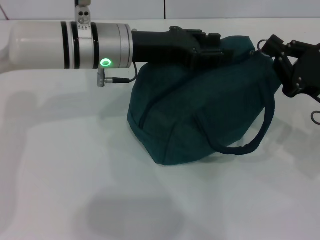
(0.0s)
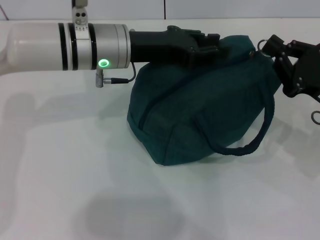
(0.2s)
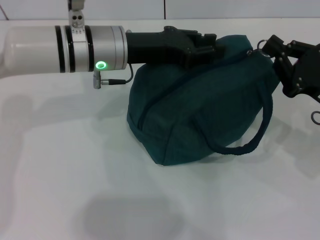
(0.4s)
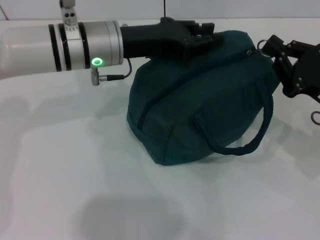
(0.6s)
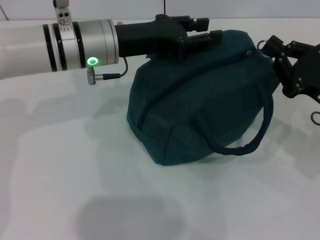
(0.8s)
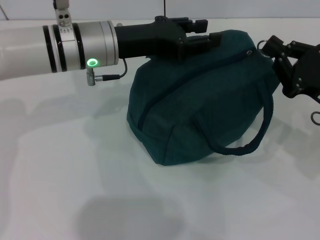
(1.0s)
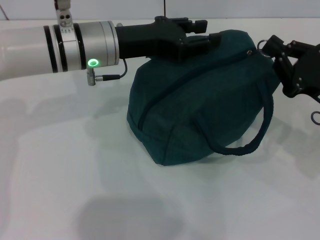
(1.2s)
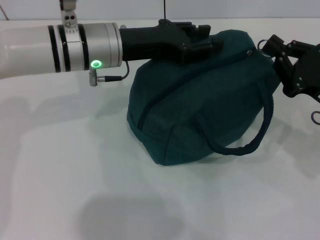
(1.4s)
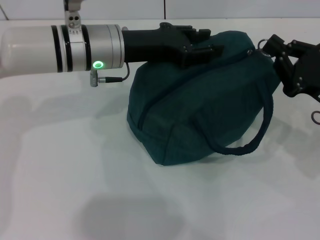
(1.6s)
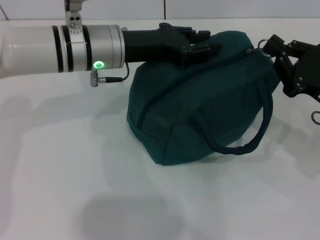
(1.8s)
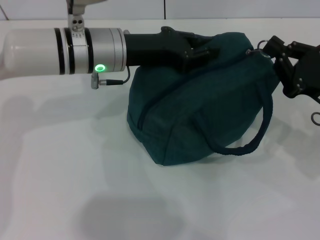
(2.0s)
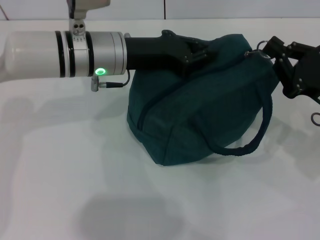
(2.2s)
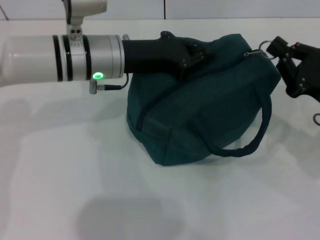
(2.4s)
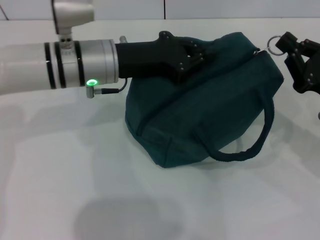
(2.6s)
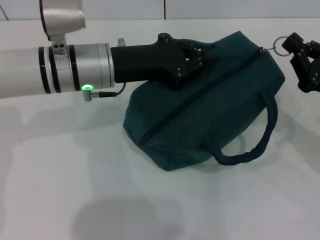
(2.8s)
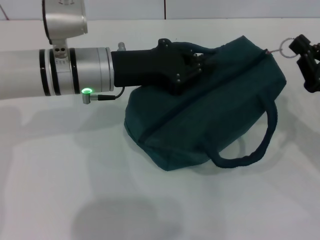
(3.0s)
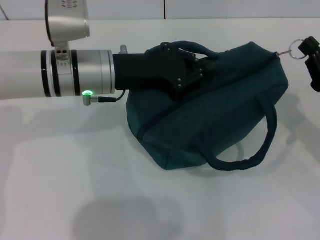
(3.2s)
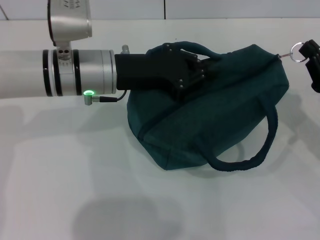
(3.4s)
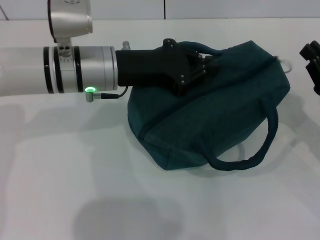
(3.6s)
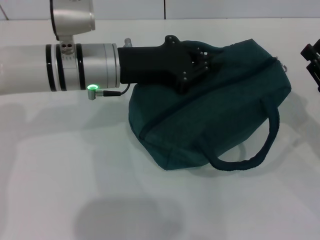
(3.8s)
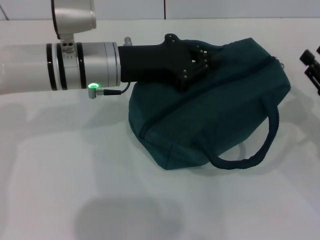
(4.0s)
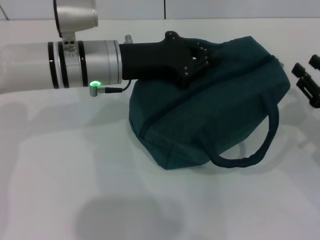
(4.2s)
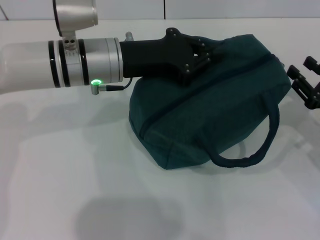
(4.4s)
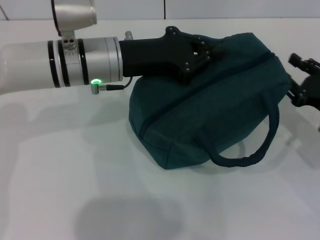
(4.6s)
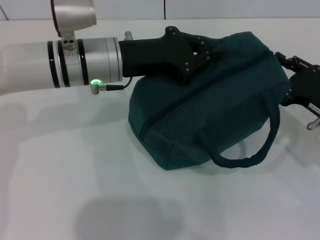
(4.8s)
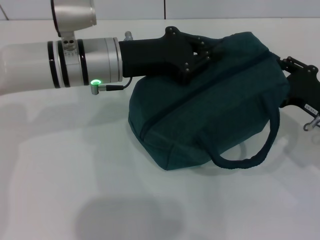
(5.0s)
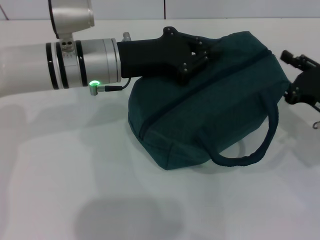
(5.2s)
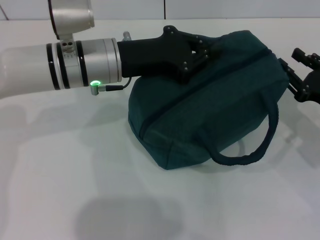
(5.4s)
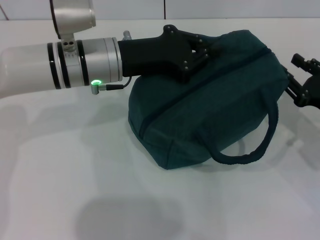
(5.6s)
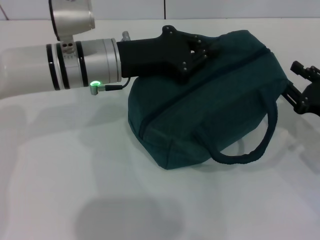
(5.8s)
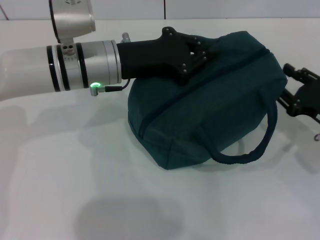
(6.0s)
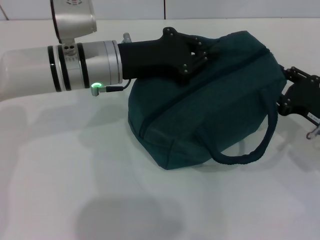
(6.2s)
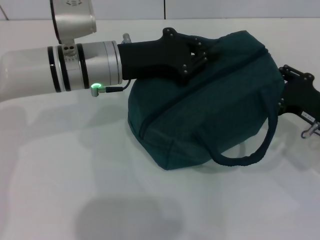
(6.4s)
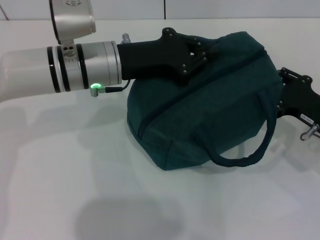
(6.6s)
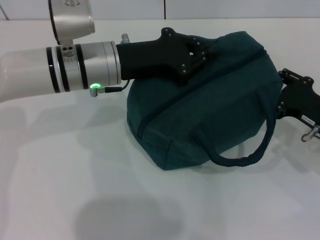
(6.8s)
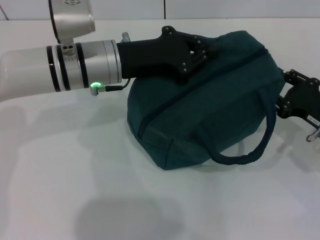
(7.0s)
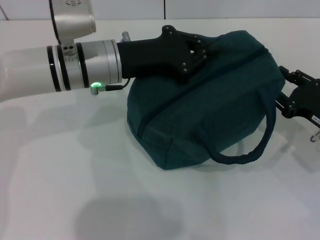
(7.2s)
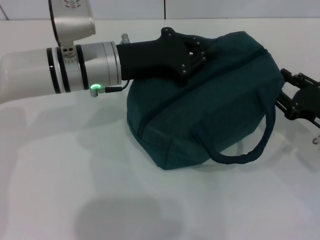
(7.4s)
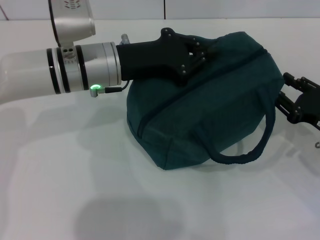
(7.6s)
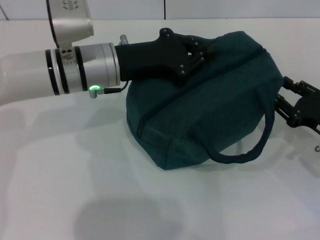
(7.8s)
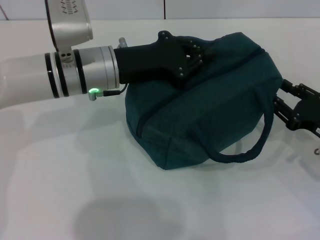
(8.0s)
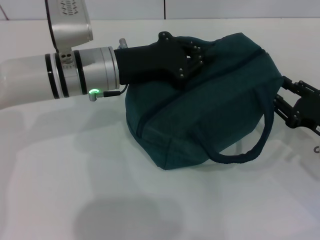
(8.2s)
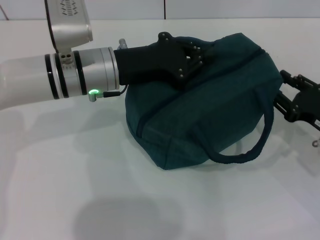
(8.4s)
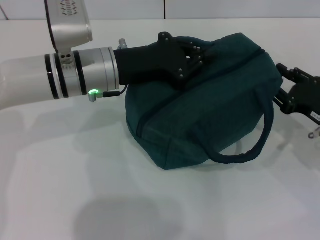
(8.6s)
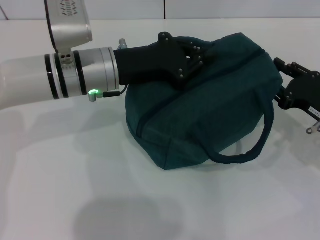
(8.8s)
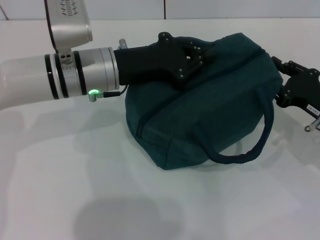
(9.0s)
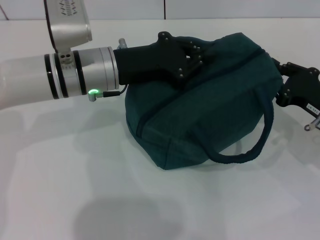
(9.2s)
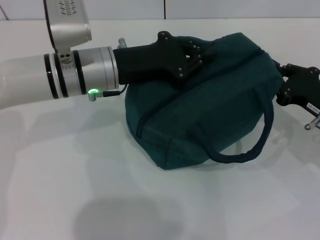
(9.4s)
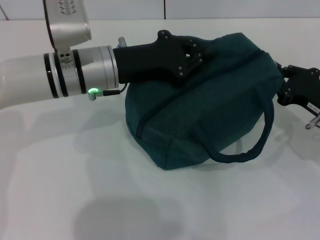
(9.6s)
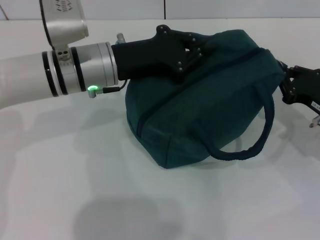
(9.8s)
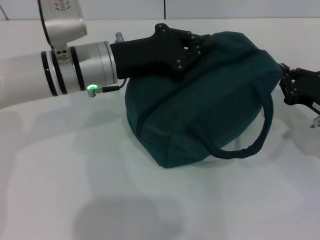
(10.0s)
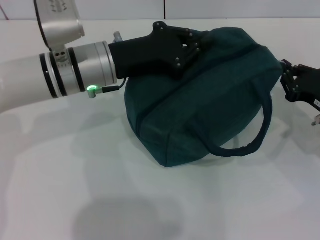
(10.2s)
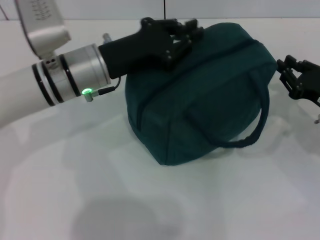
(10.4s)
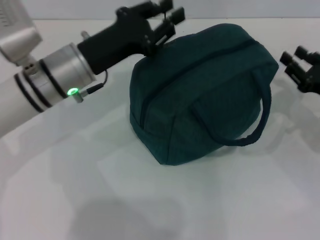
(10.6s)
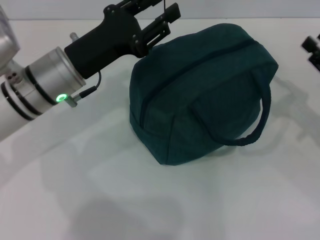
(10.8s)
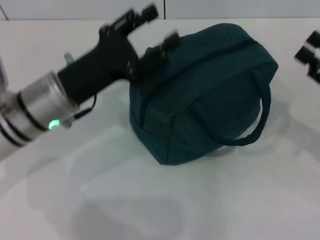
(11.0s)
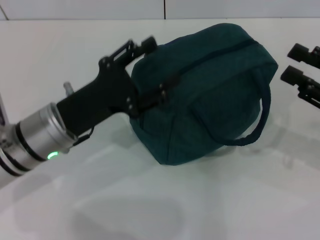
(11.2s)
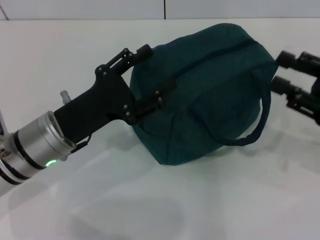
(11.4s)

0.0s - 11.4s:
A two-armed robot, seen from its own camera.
Step, 0.0s - 10.2s: Zip up the lunch bag with your right hand.
0.0s - 1.4s: The grippers make only small movements.
1.4s - 2.8s: The left gripper closes.
2.8s - 4.2s: The right gripper opens its fingers.
4.2s - 8.6s: The grippers stay close to where they were, moving slightly.
8.6s - 10.0s: The right gripper closes its fingers.
10.0s - 11.4s: The right gripper is displaced upward by some 10 cm, and opens up. Meanwhile the left gripper heads backward, downward and to the left, covering approximately 10 cm, and opens up.

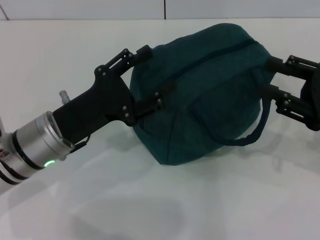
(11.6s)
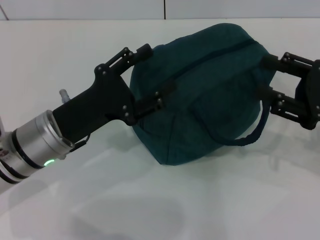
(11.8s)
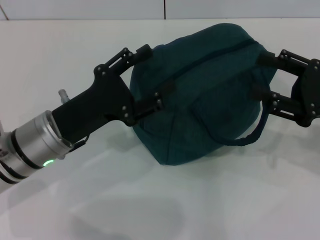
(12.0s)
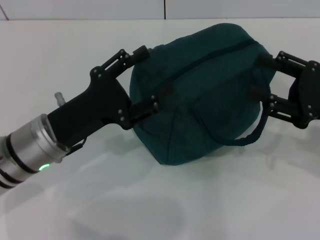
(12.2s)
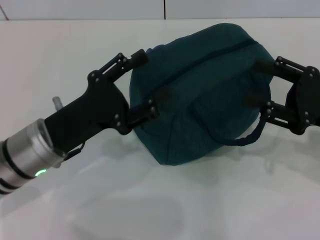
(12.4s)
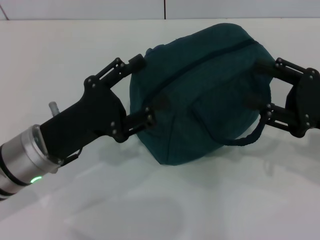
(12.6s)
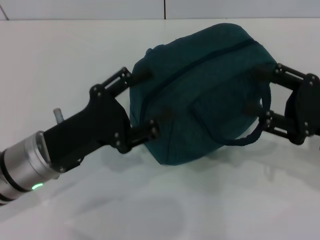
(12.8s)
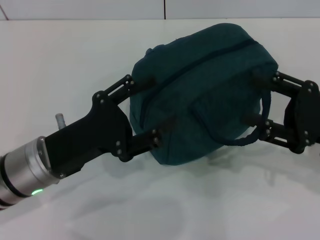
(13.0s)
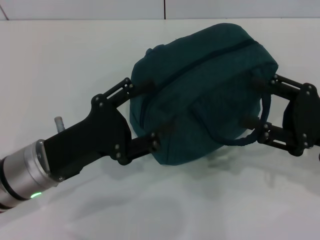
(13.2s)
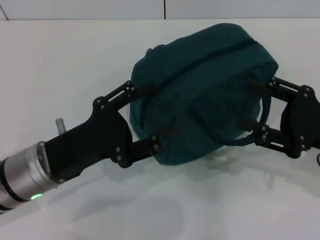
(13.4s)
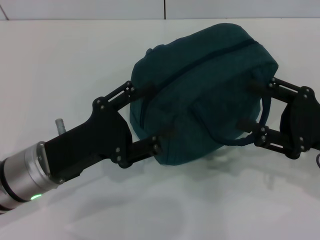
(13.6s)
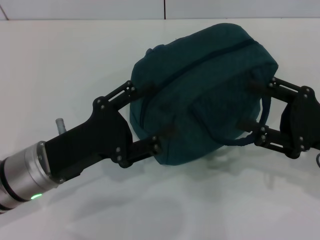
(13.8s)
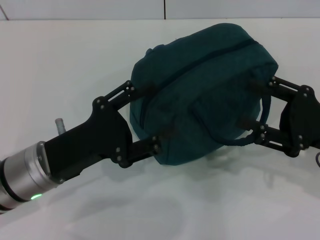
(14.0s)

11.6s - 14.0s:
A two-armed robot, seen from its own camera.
11.6s - 12.8s: The grippers stay close to where they were, moving slightly.
12.8s - 14.0s: Neither gripper changes place.

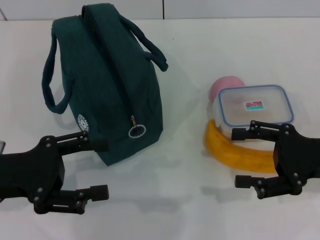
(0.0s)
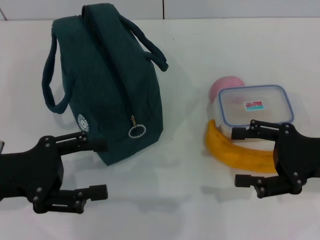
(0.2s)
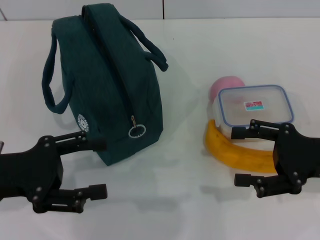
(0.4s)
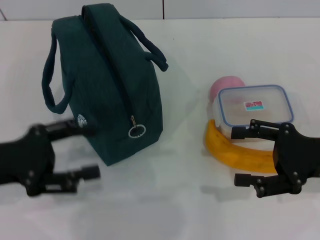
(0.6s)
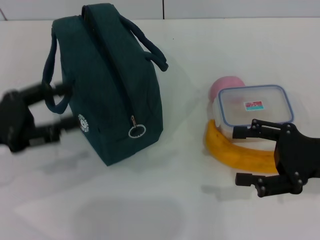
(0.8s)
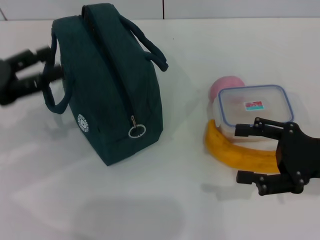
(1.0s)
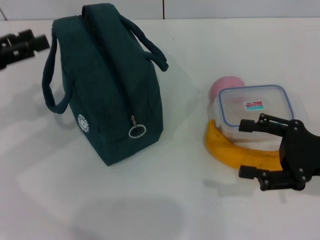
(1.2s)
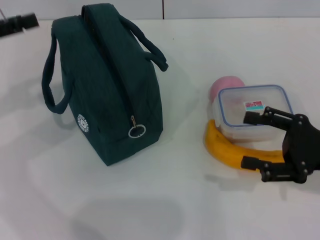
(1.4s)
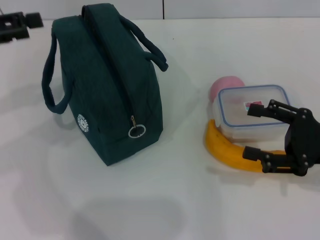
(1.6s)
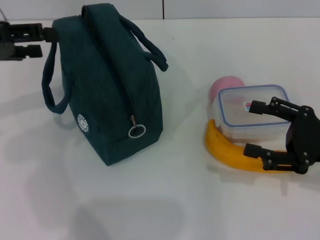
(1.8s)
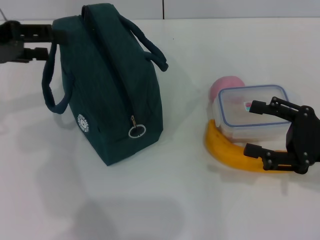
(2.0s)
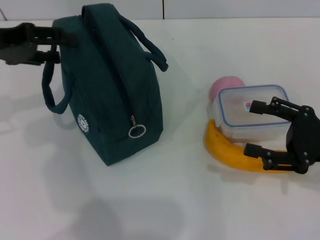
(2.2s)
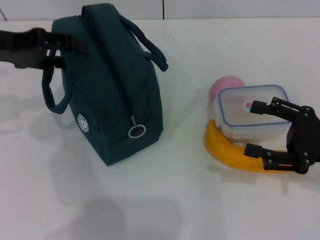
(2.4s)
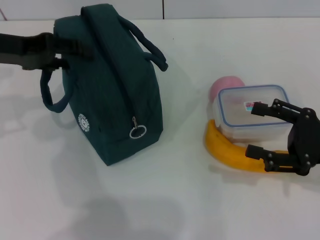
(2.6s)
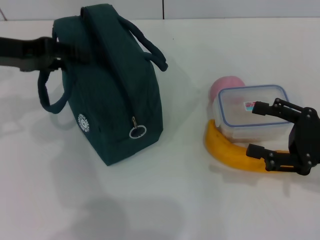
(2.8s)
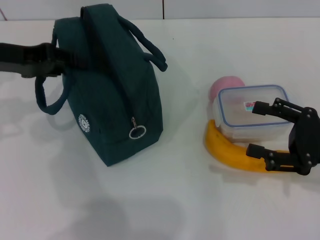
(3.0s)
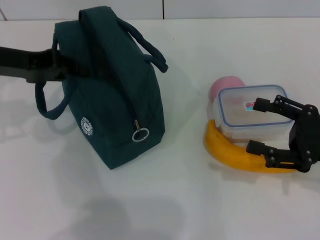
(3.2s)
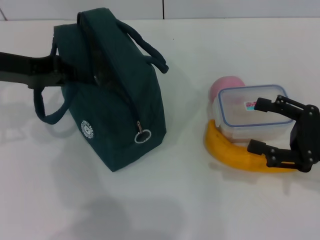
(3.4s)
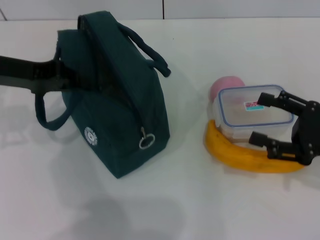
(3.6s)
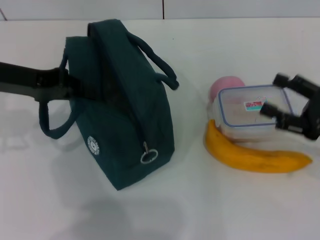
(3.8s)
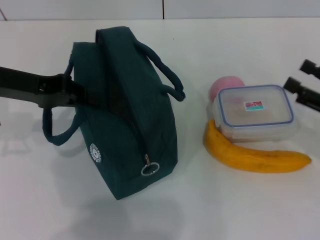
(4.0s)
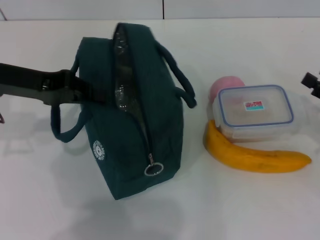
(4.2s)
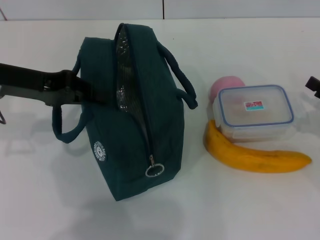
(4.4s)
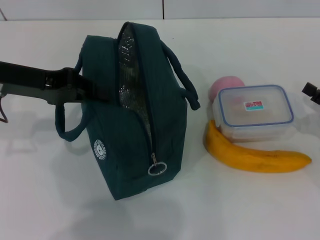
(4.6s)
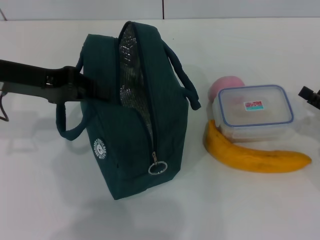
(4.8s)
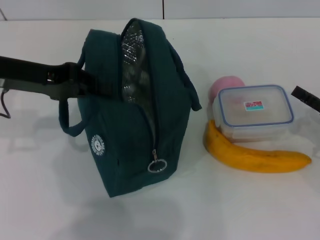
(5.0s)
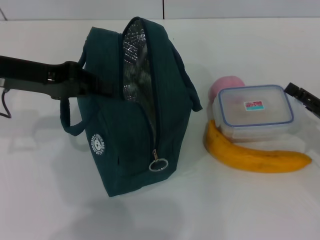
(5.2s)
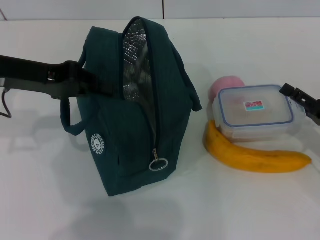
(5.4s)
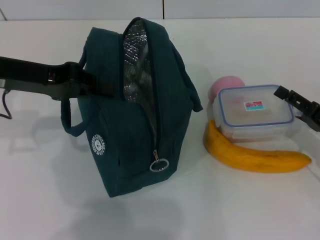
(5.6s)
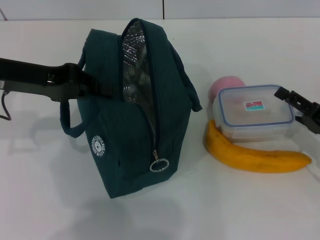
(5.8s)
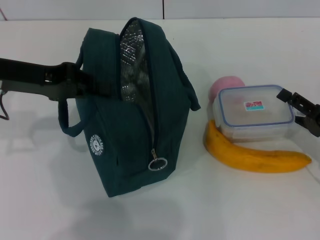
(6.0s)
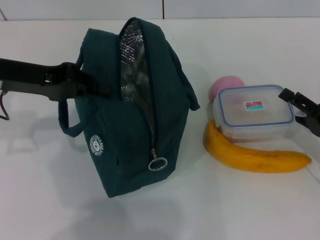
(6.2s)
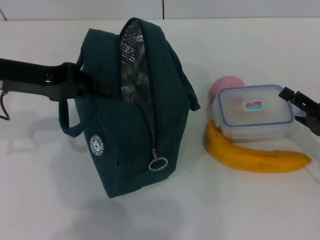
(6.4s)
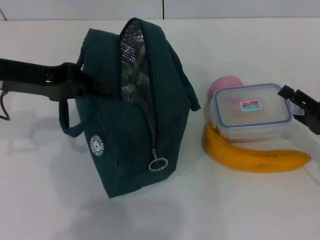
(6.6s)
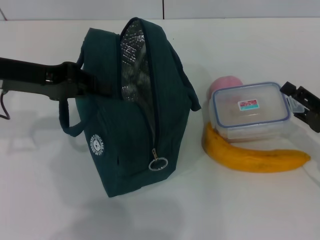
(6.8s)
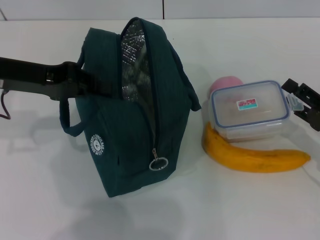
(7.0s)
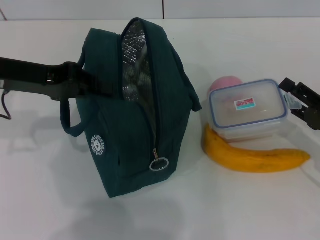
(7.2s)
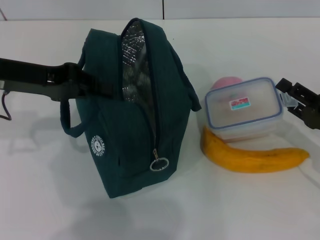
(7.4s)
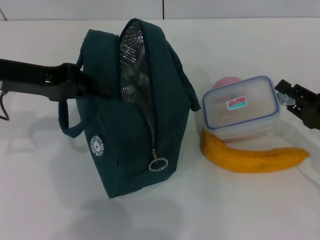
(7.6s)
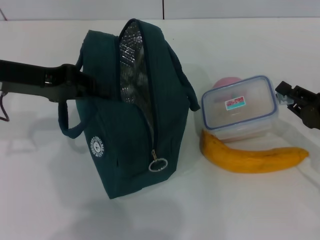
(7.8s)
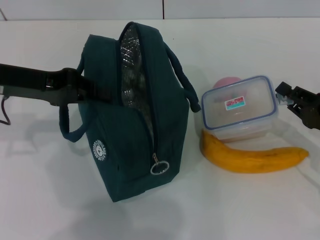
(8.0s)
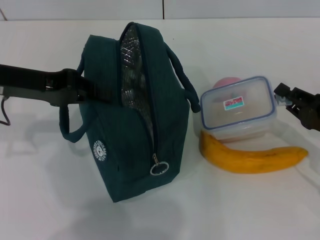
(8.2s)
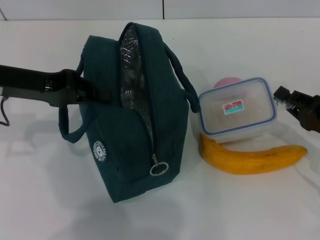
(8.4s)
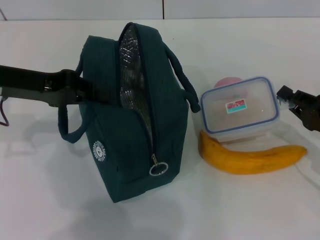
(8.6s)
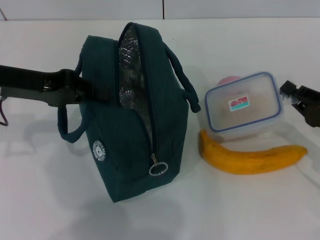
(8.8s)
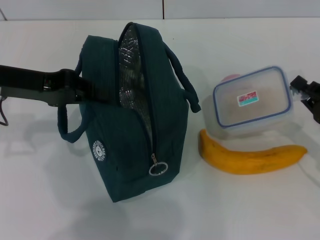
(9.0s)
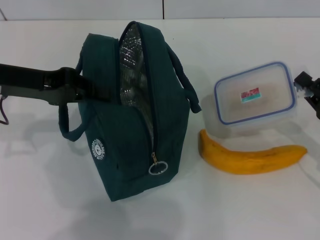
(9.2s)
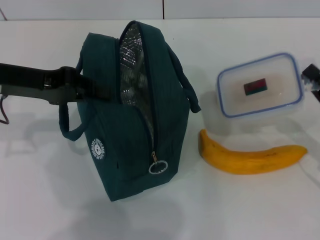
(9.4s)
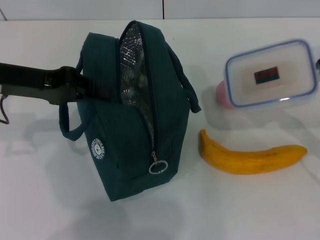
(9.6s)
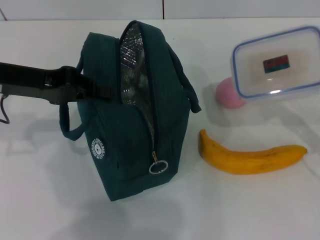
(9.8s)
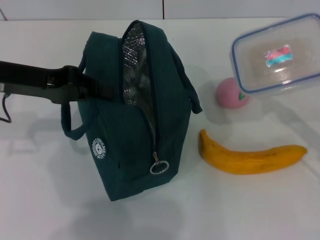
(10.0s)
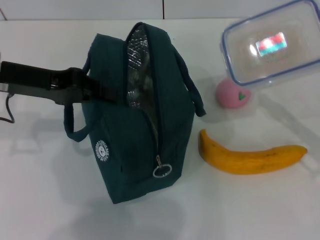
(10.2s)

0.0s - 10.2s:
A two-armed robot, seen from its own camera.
Step, 0.0s - 3.0s: Hold the lunch bag with your left hand.
Step, 3.2s - 8.4s: Pick up the lunch box with your right hand.
0.0s - 1.4s: The left gripper shifts roughly 15 cm forward, upward and to the left.
1.4s - 3.0s: The left gripper is displaced to the right by roughly 5 cm.
3.0s - 4.4s: The left gripper closes up. Meanwhile the right gripper moves to the right, about 5 cm.
4.4s - 5.8s: The right gripper shifts by about 5 cm.
5.8s - 7.2s: The grippers stay close to where they were, moving slightly.
7.2s - 8.8s: The right gripper closes.
8.8s - 10.2s: The right gripper travels upward by about 5 cm.
